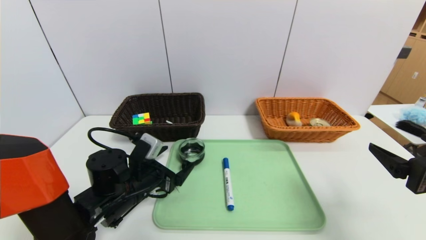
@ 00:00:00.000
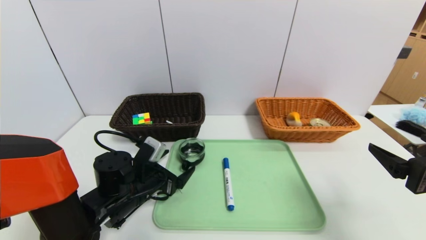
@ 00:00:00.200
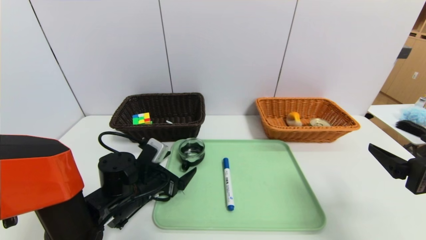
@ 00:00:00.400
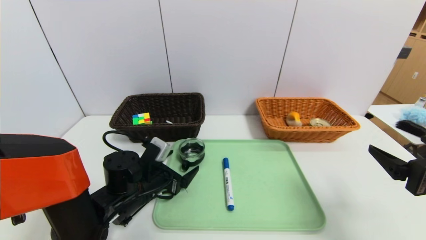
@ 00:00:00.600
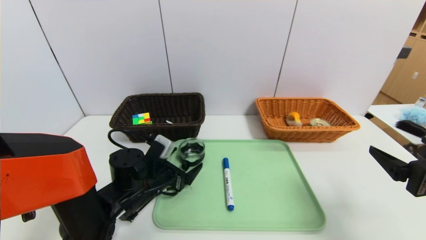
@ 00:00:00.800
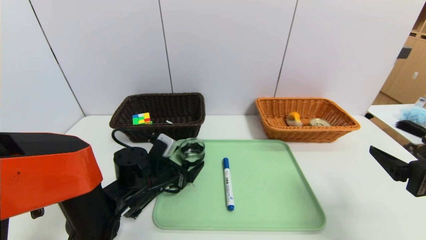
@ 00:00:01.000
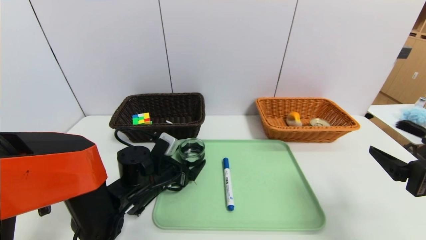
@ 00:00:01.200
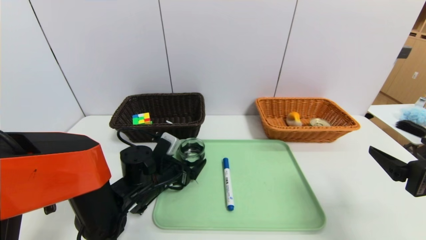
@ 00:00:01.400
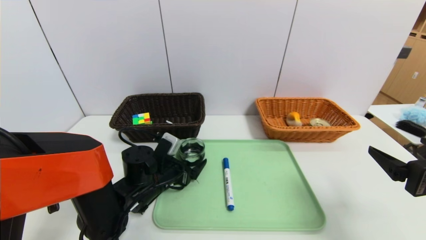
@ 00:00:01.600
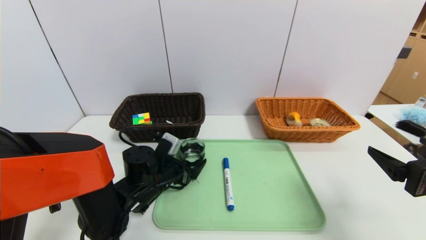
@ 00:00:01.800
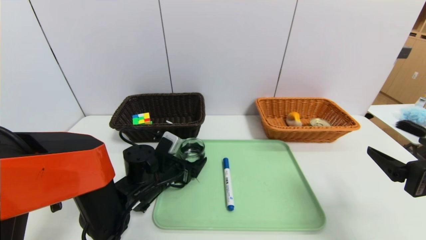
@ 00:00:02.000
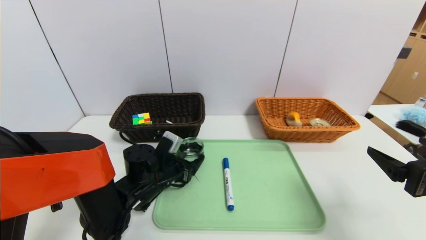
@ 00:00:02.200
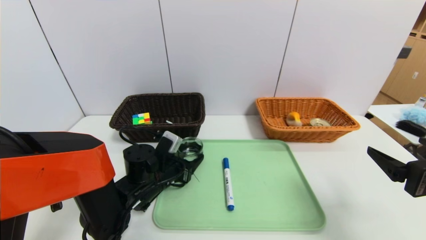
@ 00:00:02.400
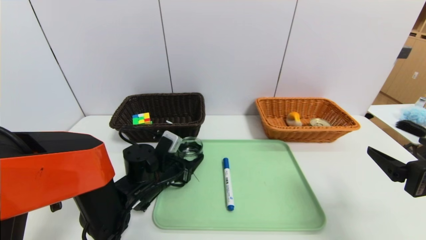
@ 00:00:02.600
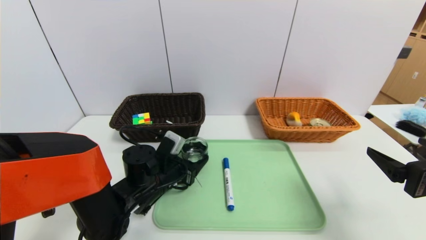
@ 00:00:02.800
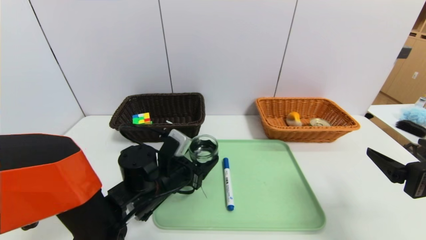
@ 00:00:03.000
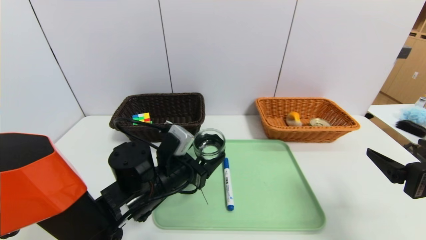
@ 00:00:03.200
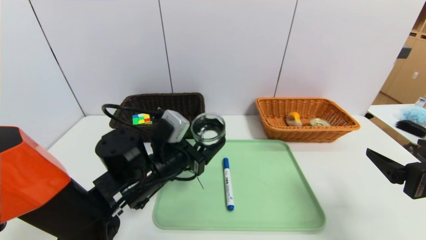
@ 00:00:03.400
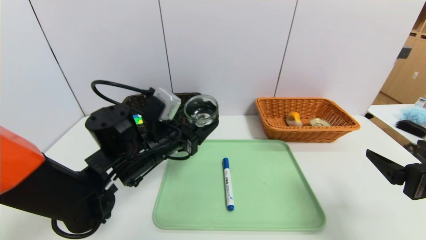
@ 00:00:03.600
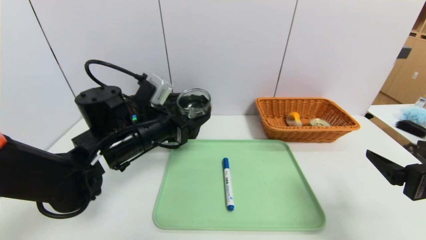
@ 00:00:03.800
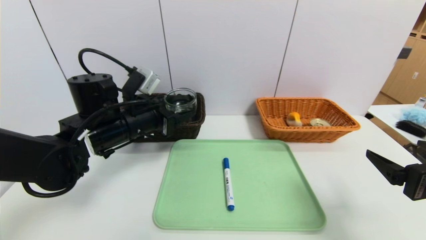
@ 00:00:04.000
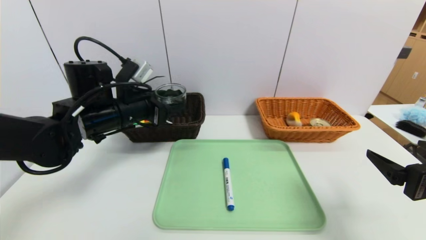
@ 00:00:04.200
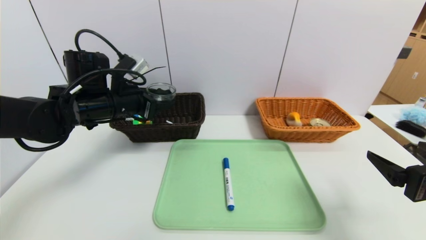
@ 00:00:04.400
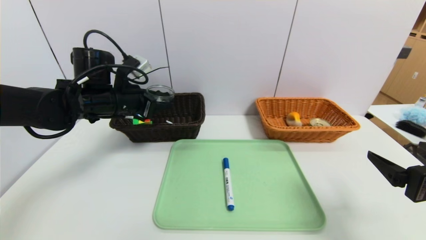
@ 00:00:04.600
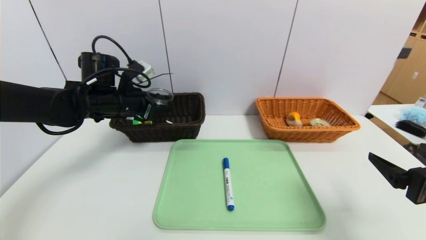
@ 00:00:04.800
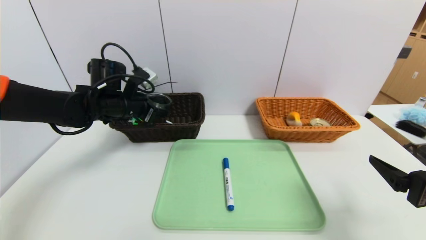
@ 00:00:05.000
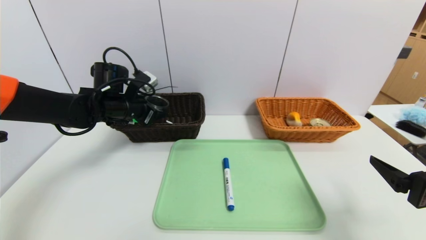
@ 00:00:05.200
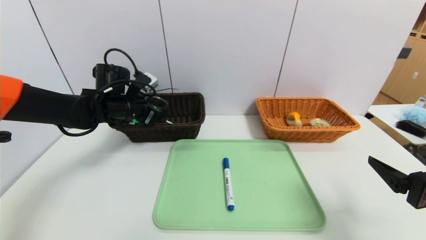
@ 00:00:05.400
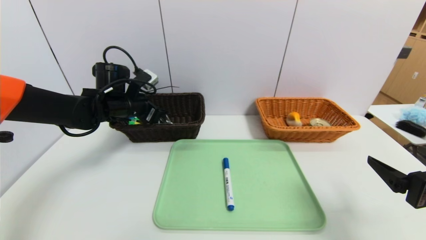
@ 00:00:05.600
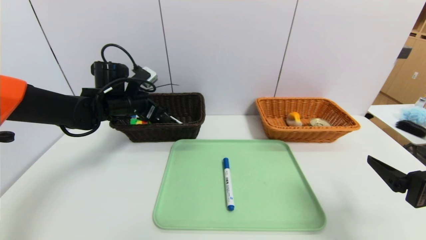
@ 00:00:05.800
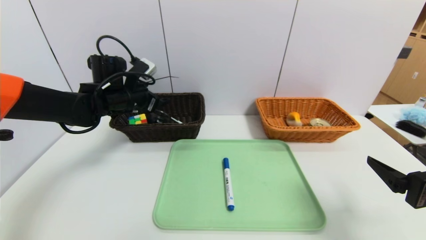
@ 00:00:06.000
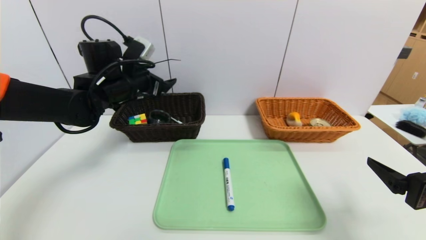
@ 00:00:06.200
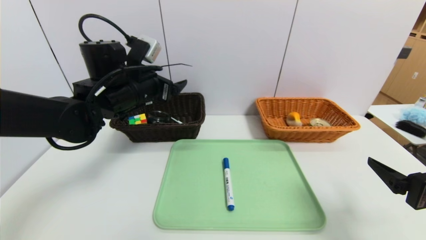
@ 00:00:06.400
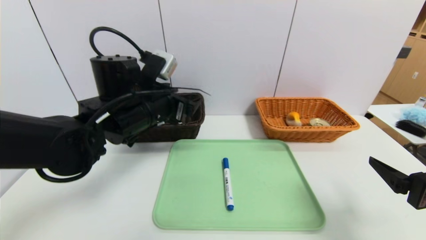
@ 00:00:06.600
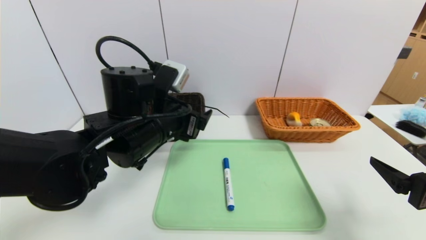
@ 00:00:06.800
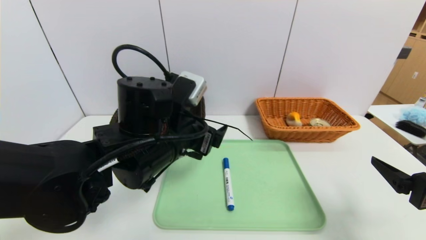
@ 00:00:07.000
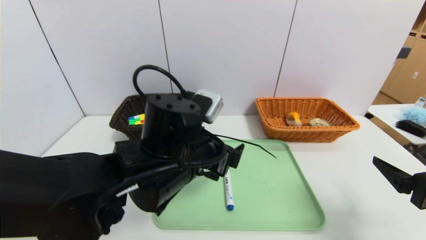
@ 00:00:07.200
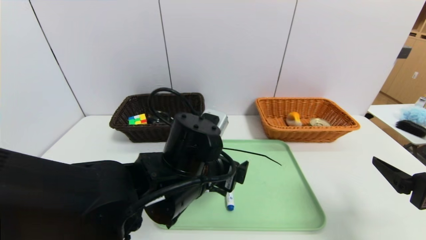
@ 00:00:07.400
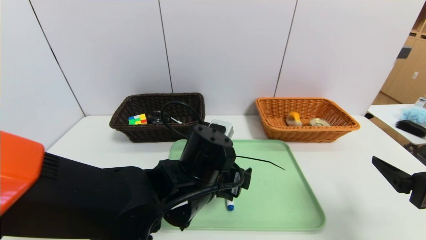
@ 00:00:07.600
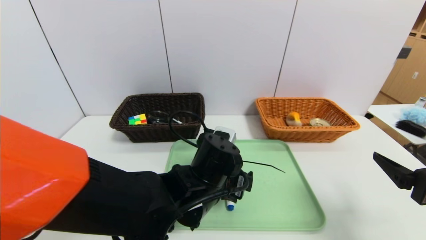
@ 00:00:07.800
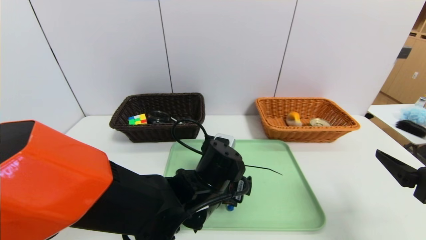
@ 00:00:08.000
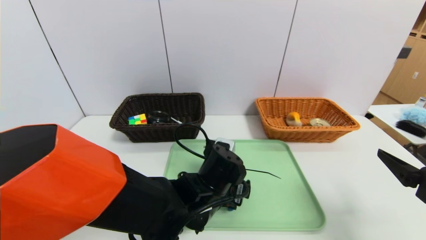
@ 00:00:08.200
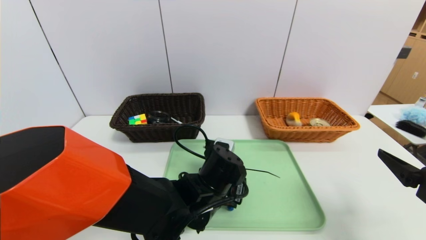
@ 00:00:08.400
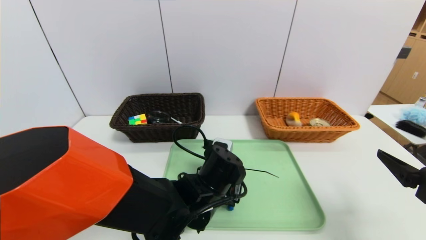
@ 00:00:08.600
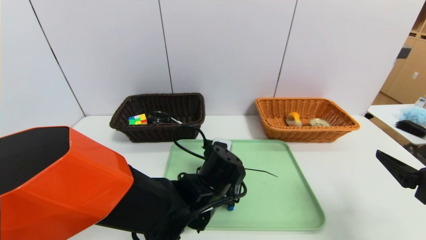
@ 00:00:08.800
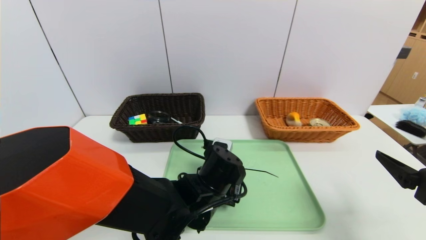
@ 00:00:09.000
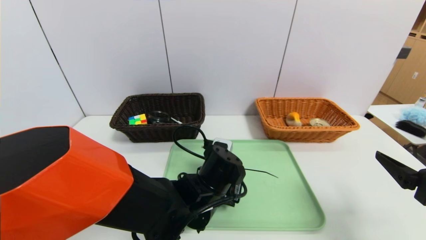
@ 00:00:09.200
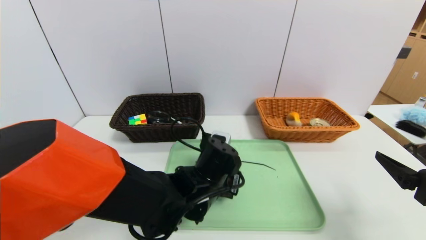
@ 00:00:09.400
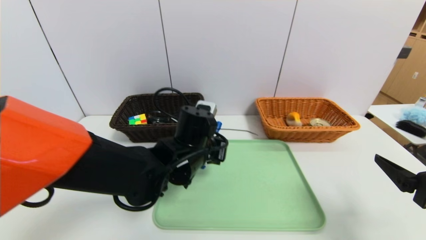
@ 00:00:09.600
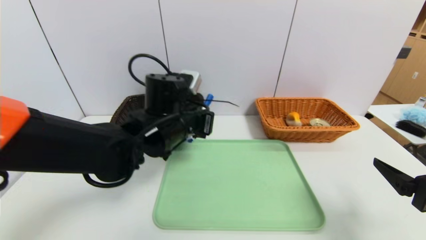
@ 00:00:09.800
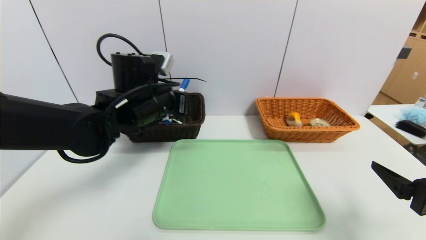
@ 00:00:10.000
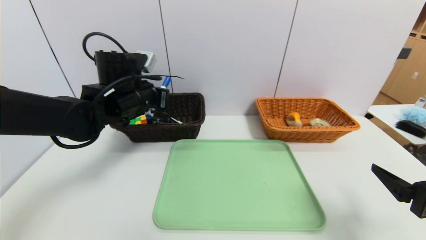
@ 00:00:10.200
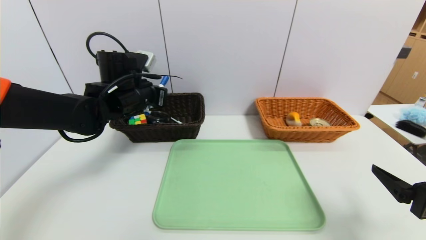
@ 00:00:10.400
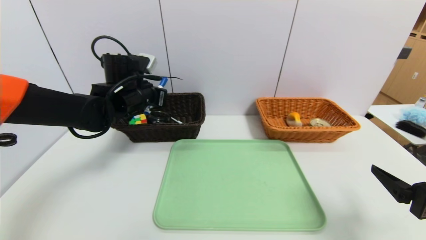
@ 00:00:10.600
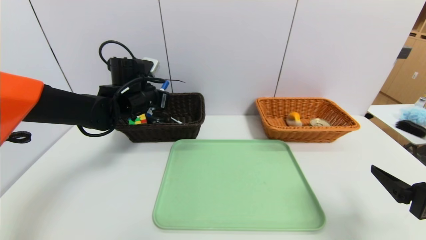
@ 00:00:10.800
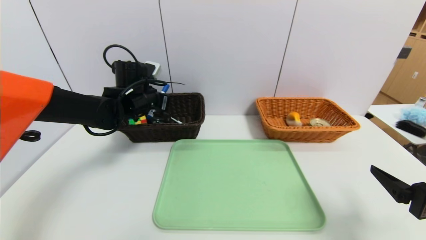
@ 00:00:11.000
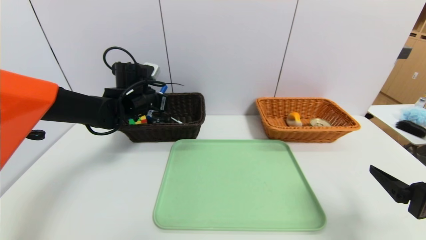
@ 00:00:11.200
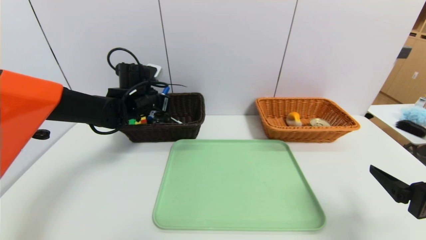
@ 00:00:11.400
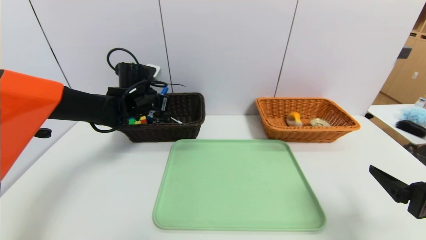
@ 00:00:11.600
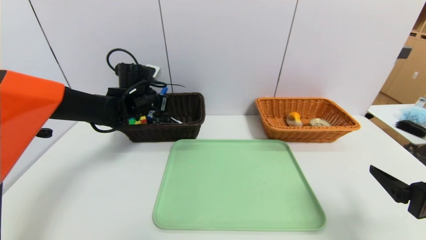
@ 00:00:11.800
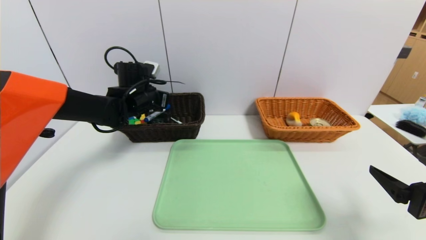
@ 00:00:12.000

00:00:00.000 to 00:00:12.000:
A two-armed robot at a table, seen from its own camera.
Task of the whole recording: place the food in the right basket with the right gripper, and place the non food items in the left basket with the left gripper.
Step, 00:00:00.000 to 00:00:05.800: Grasp the tea cup and put it in the left basket.
00:00:00.000 to 00:00:01.600: The left gripper changes place by roughly 5 cm.
00:00:01.600 to 00:00:03.000: The left gripper shifts by approximately 5 cm.
00:00:03.000 to 00:00:04.400: The left gripper moves upward, to the left and forward, approximately 20 cm.
00:00:04.400 to 00:00:06.000: The left gripper travels forward by approximately 5 cm.
00:00:06.000 to 00:00:07.600: The left gripper is displaced to the right and backward by about 25 cm.
00:00:07.600 to 00:00:09.000: The left gripper heads downward, covering some 5 cm, and closes.
00:00:09.000 to 00:00:10.400: The left gripper shifts approximately 25 cm to the left, upward and forward.
00:00:10.400 to 00:00:12.000: The left gripper goes some 5 cm forward, and opens.

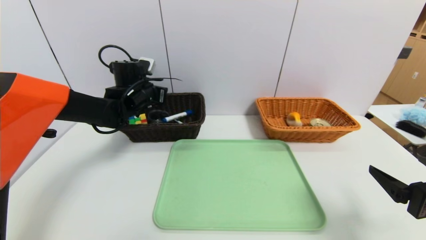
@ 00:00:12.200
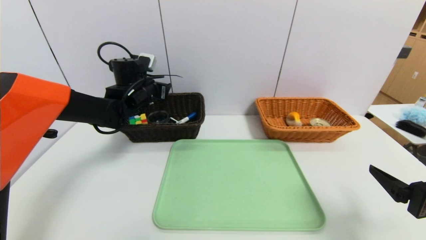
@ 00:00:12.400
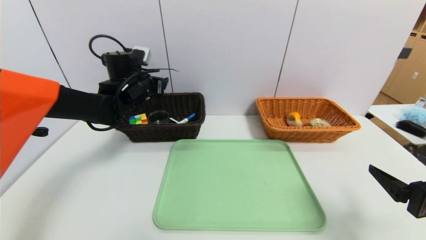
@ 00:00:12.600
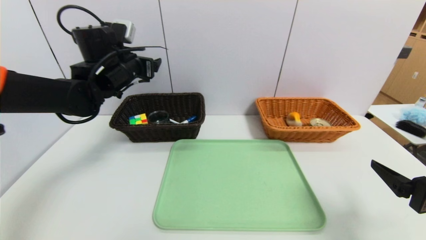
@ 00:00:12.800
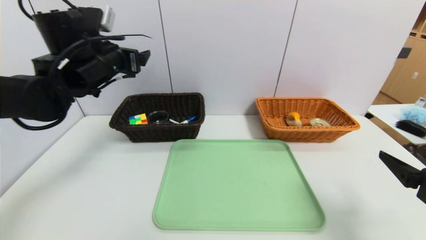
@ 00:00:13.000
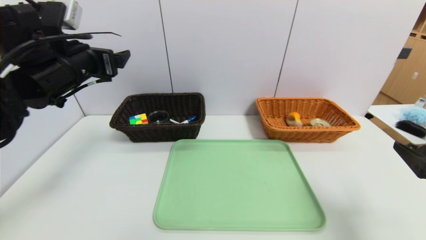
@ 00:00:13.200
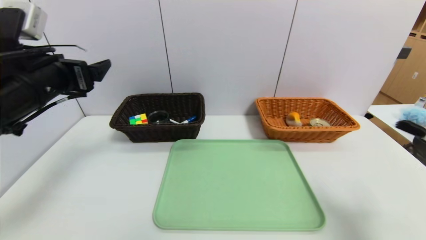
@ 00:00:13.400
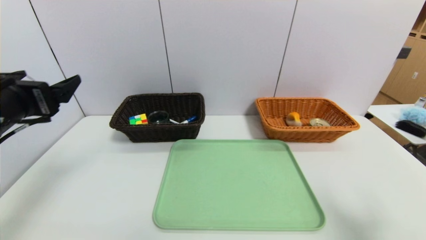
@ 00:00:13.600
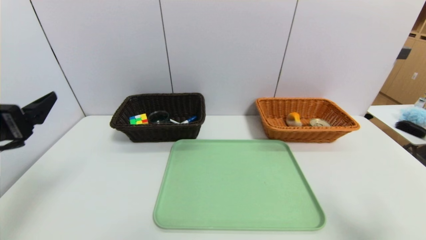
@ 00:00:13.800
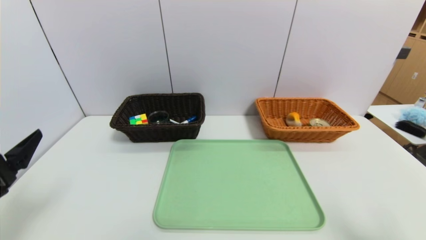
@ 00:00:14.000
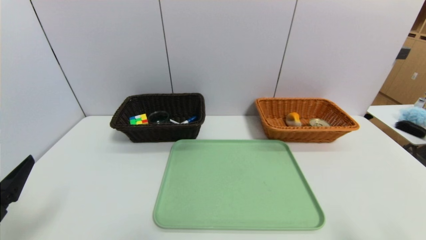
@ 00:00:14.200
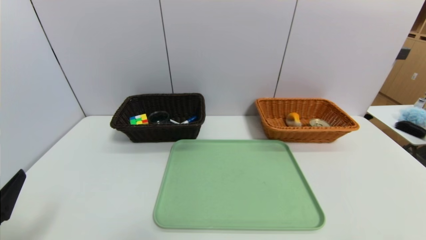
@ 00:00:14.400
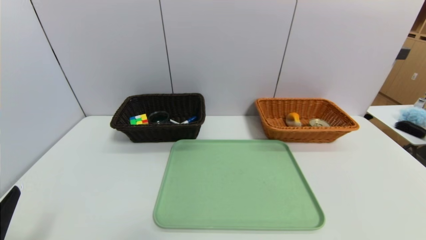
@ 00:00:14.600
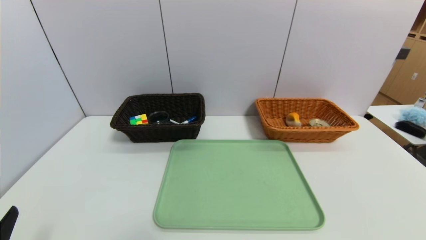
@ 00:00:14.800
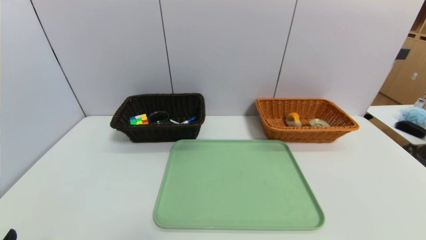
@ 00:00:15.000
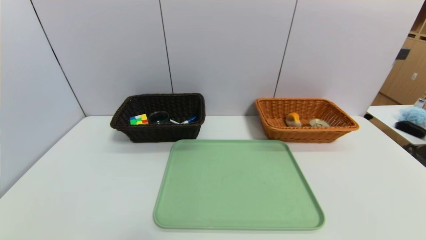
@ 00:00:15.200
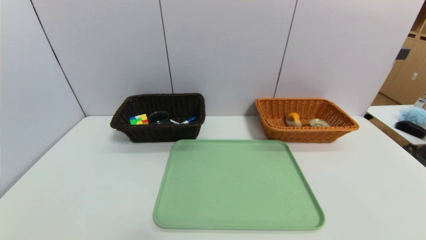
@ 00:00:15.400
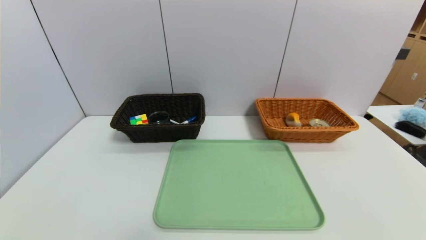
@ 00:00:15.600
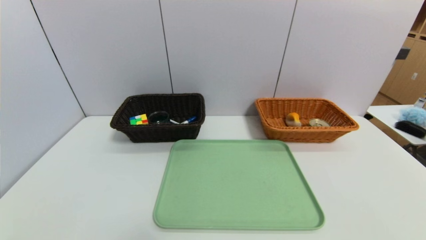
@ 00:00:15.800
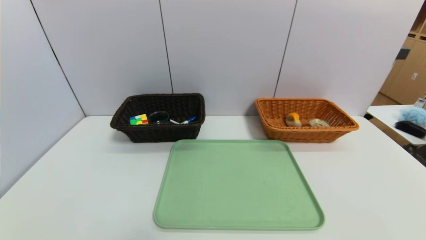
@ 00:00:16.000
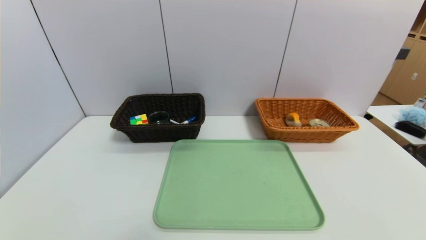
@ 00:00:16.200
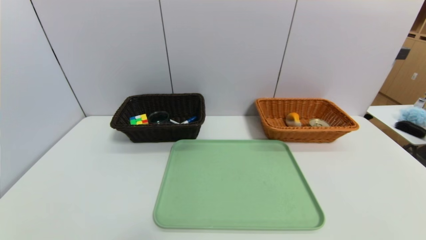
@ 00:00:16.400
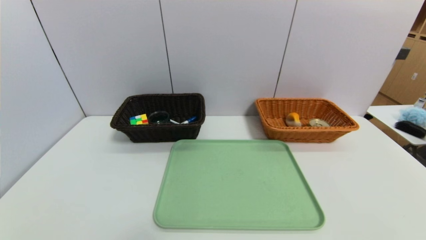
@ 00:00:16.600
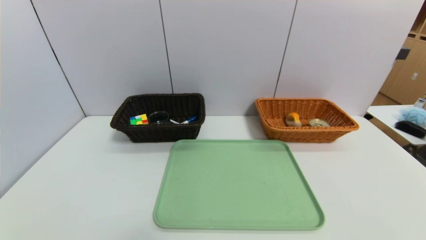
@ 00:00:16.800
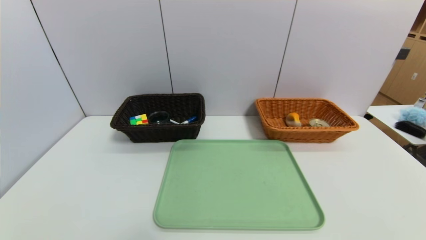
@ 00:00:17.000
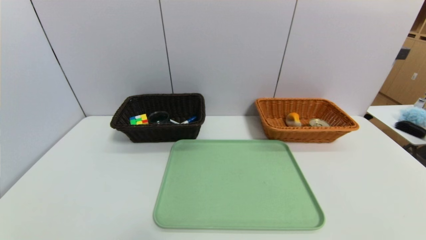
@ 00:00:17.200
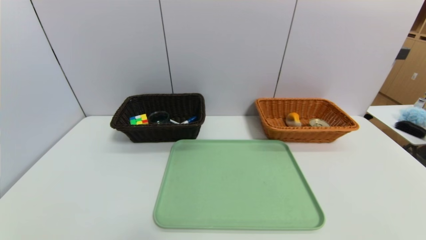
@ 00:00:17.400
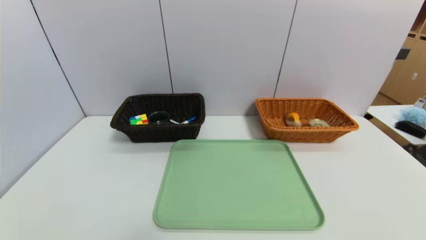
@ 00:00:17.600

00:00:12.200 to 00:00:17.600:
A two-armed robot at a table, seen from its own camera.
Task of the whole recording: place the food in the right basket with the right gripper, and place the non food items in the left basket with the left gripper.
00:00:12.200 to 00:00:13.600: The left gripper heads backward, covering some 25 cm, and opens, while the right gripper changes place by roughly 5 cm.
00:00:13.600 to 00:00:15.000: The right gripper shifts approximately 15 cm backward and downward. The left gripper is displaced backward and downward by approximately 25 cm.
